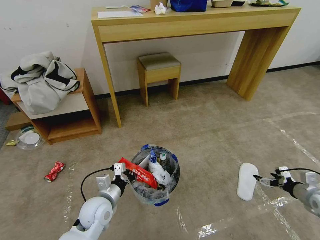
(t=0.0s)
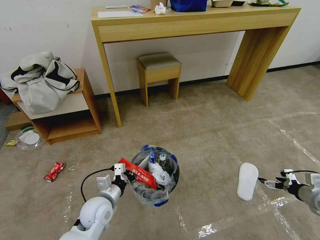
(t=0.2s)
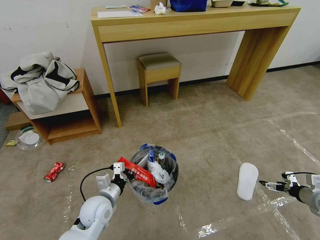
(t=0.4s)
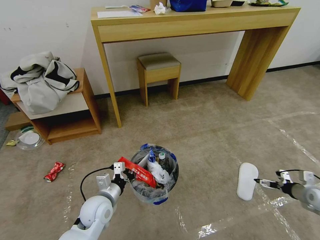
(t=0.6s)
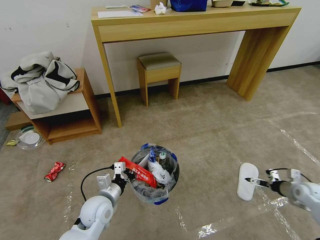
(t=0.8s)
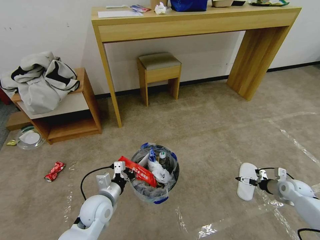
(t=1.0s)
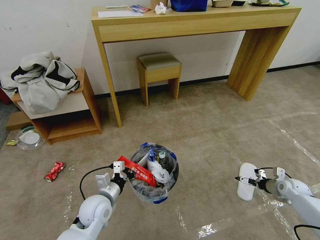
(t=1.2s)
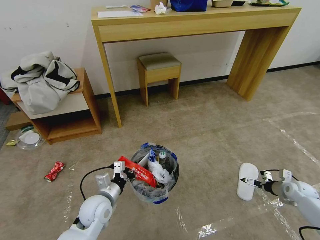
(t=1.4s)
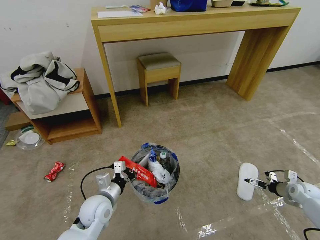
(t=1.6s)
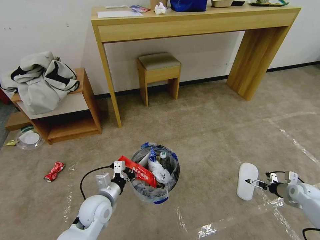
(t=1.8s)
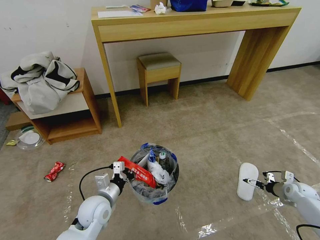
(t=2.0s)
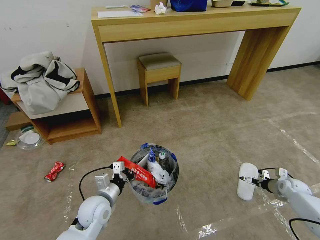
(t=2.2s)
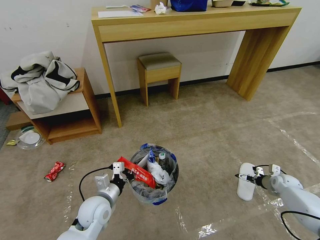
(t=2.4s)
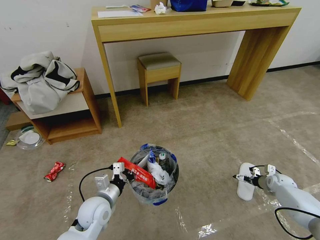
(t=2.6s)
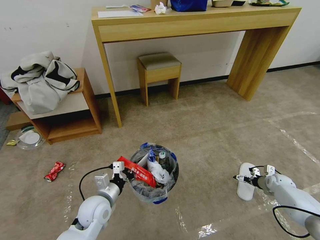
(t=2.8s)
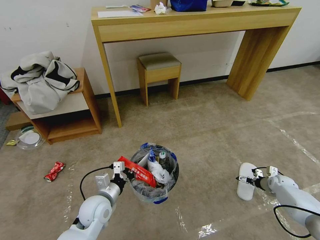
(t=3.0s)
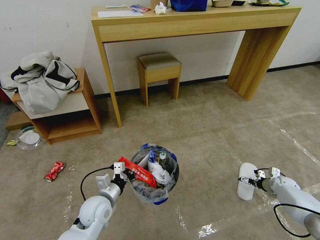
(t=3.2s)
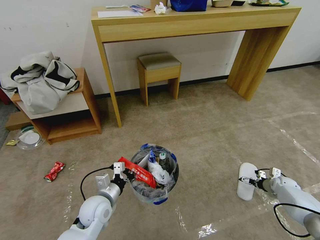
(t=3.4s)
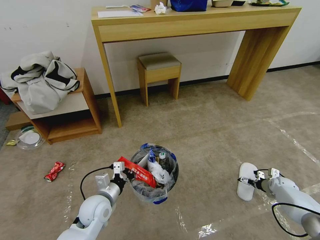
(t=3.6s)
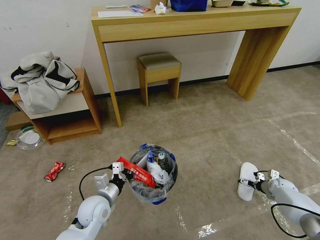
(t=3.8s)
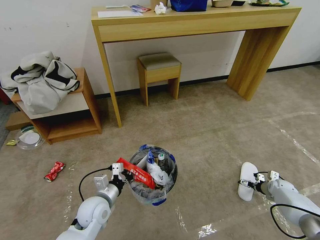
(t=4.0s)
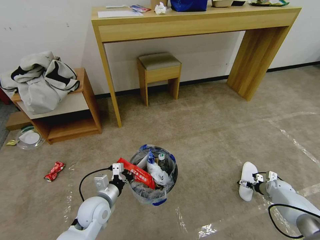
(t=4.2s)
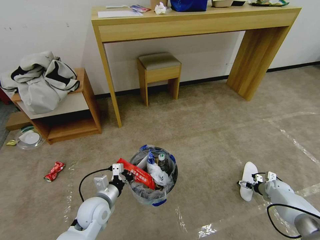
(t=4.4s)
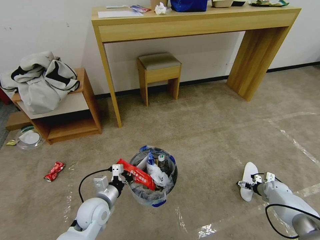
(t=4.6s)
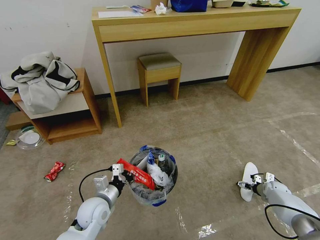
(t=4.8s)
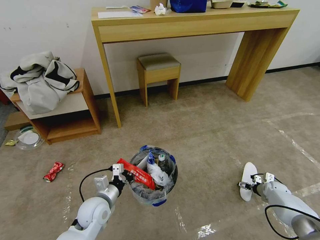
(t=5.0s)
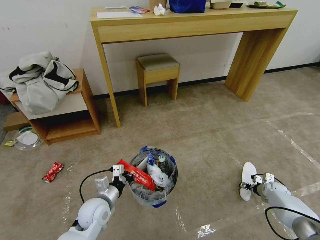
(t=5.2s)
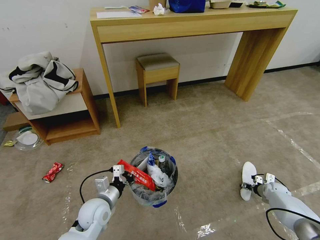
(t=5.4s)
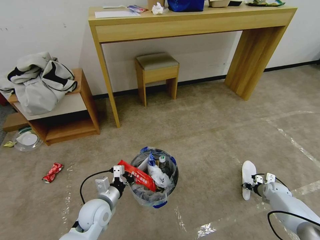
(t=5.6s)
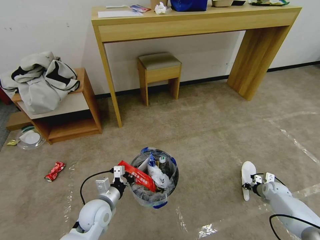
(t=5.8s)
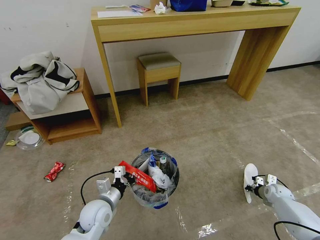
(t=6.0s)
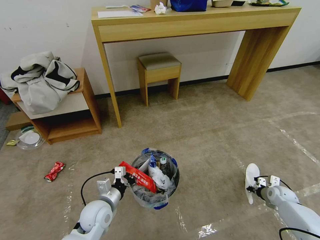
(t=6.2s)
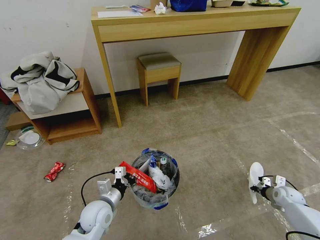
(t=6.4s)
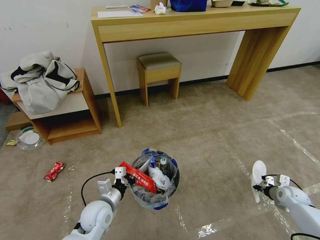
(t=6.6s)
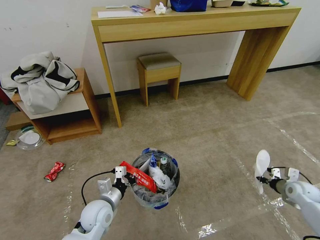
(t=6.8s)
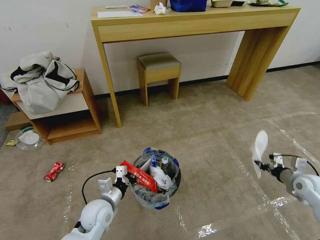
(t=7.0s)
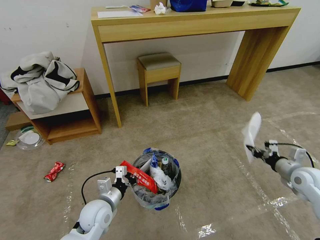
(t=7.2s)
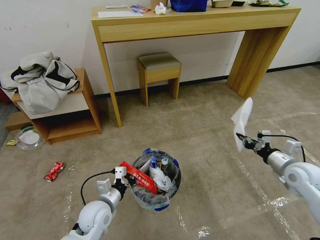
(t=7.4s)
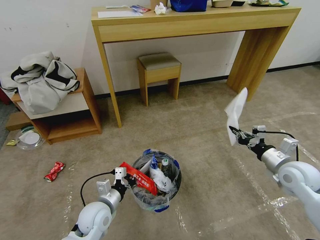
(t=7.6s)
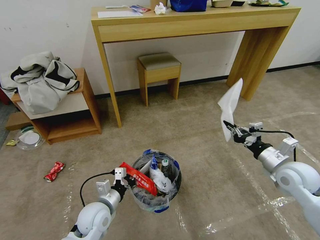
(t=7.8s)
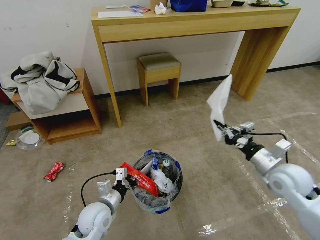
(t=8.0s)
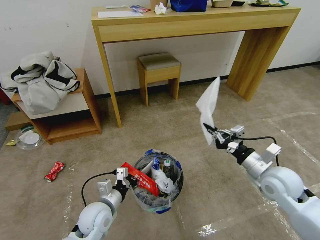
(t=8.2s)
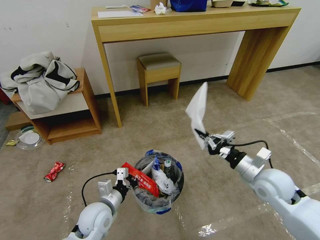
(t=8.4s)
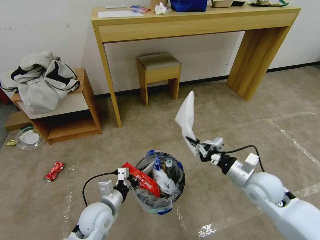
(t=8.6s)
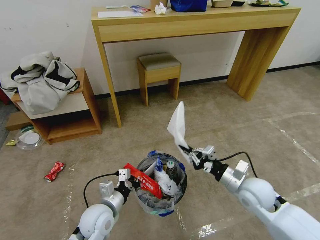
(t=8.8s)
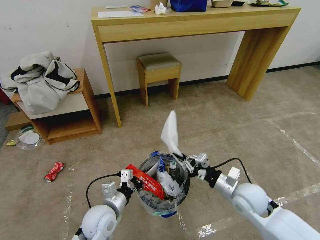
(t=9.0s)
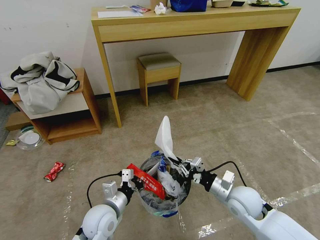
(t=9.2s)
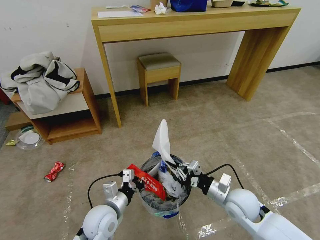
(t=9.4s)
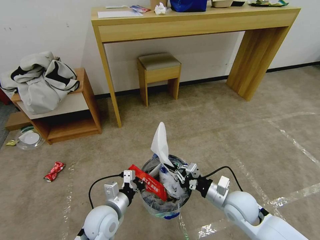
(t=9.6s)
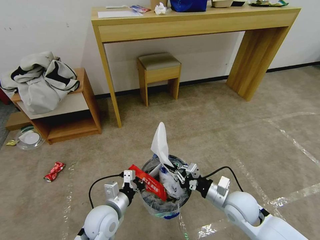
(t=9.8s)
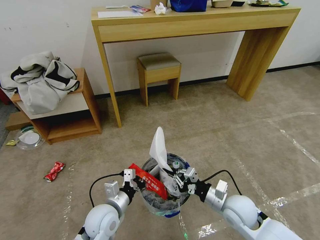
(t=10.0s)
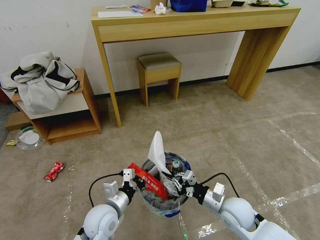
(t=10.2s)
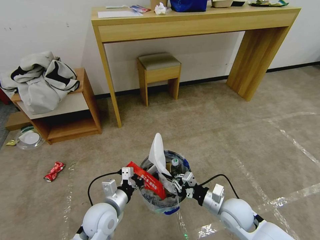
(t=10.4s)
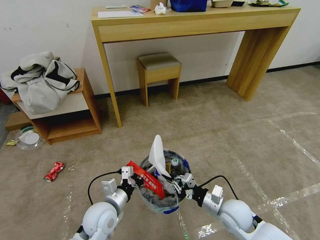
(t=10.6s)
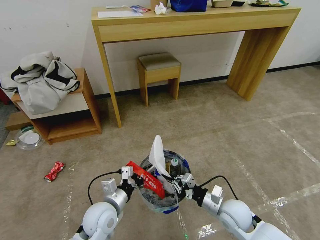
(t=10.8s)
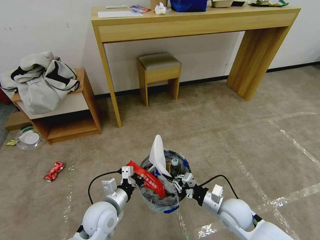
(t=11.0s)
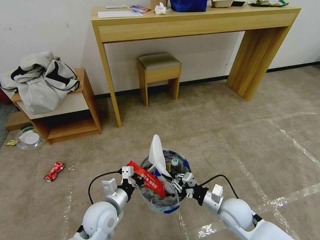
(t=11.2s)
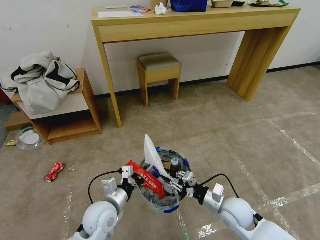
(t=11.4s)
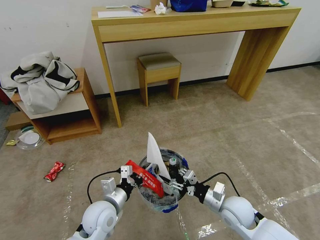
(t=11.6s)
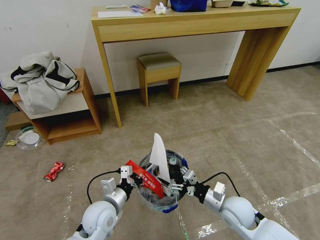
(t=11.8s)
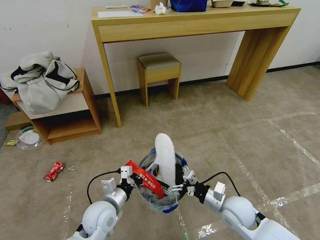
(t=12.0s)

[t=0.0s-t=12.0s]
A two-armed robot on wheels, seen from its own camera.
Task of the whole recording: Pick up the trash bin and place the garbage on the floor into it.
t=0.0s to t=1.6s: The right gripper is displaced downward and forward by about 10 cm.
t=1.6s to t=3.0s: The right gripper goes some 10 cm forward and downward.
t=3.0s to t=4.4s: The grippers stay close to where they were, moving slightly.
t=4.4s to t=6.0s: The right gripper closes up.
t=6.0s to t=7.6s: The right gripper shifts some 30 cm upward and to the left.
t=7.6s to t=9.0s: The right gripper moves to the left and downward, approximately 15 cm.
t=9.0s to t=10.4s: The right gripper moves downward, some 5 cm.
t=10.4s to t=12.0s: The right gripper opens its fingers.

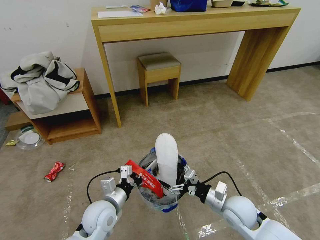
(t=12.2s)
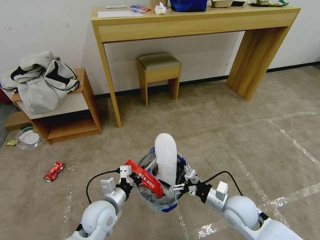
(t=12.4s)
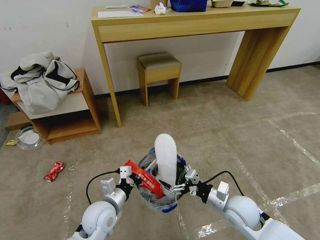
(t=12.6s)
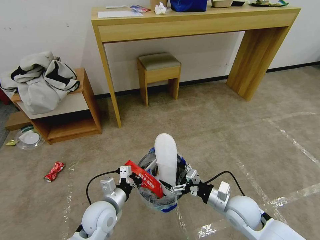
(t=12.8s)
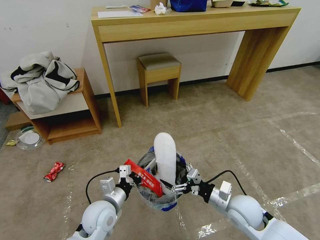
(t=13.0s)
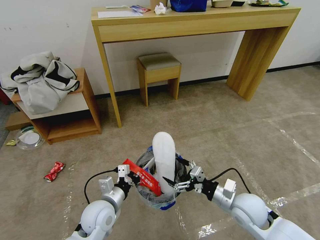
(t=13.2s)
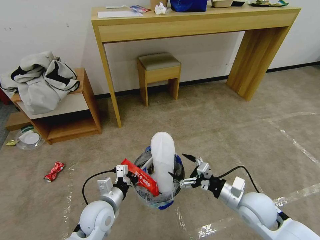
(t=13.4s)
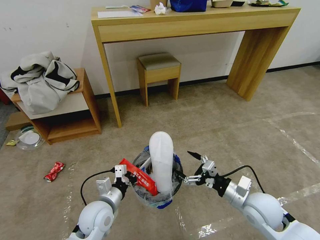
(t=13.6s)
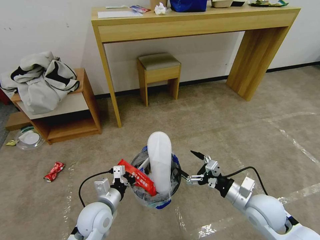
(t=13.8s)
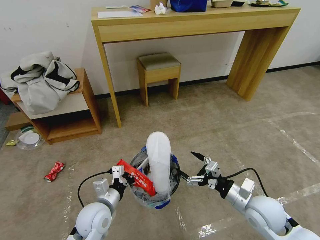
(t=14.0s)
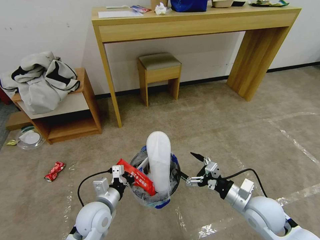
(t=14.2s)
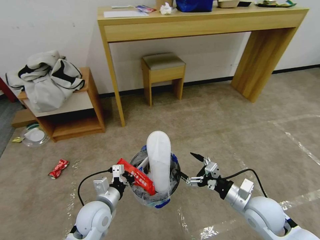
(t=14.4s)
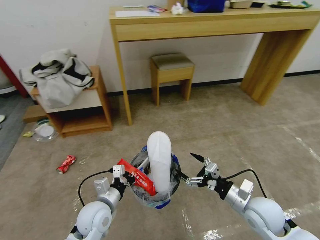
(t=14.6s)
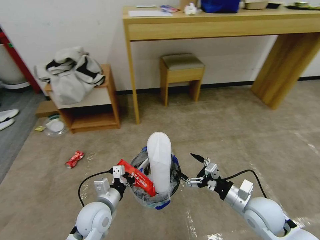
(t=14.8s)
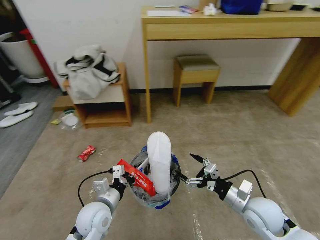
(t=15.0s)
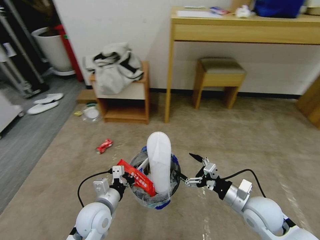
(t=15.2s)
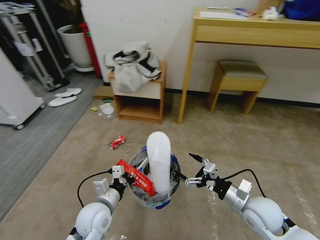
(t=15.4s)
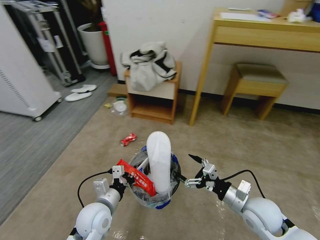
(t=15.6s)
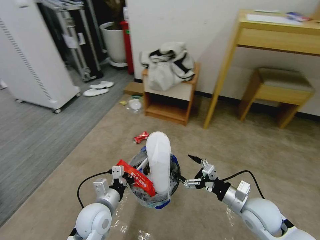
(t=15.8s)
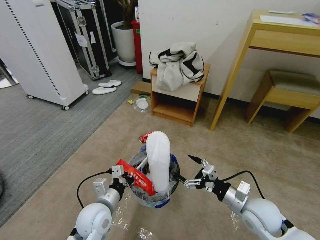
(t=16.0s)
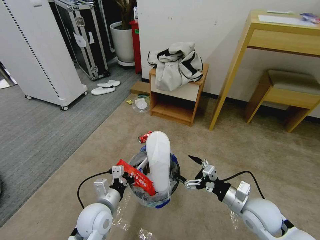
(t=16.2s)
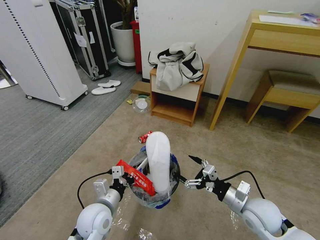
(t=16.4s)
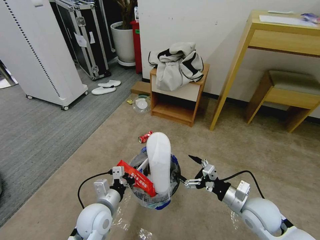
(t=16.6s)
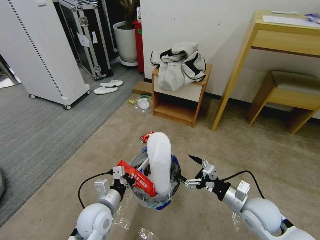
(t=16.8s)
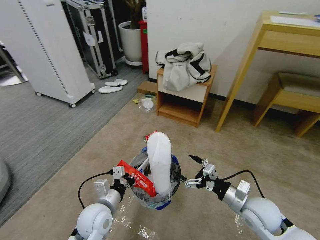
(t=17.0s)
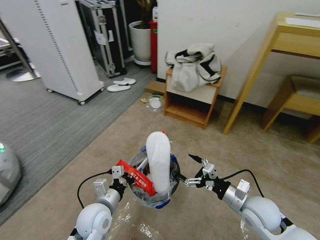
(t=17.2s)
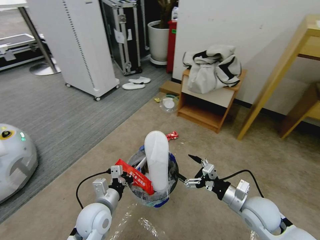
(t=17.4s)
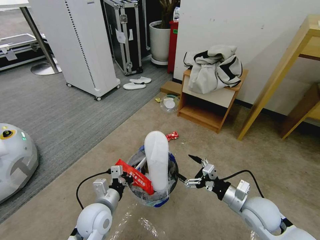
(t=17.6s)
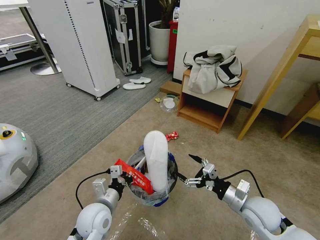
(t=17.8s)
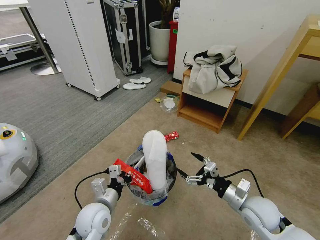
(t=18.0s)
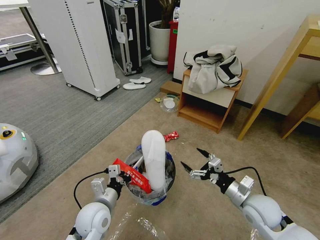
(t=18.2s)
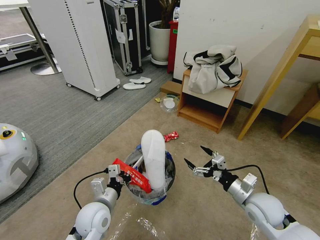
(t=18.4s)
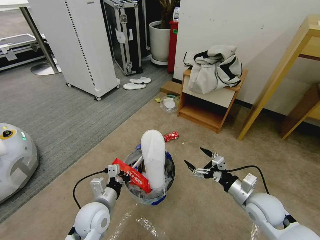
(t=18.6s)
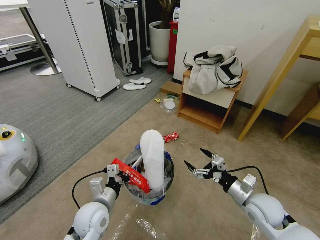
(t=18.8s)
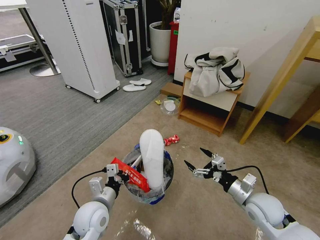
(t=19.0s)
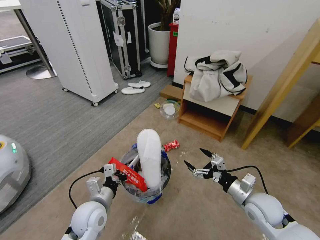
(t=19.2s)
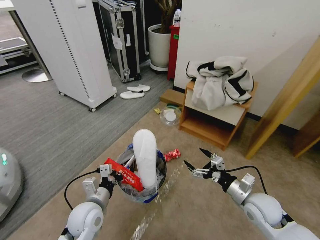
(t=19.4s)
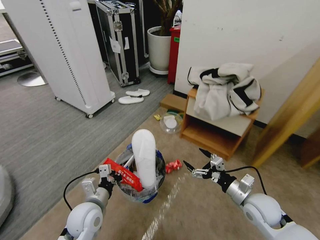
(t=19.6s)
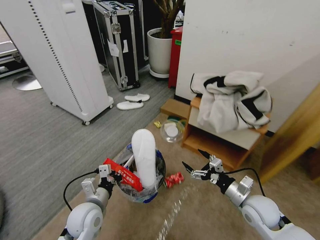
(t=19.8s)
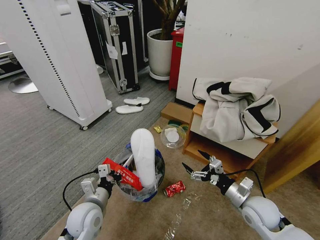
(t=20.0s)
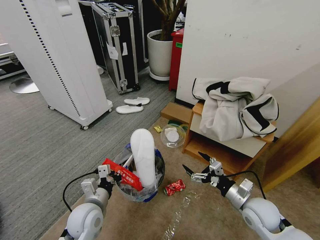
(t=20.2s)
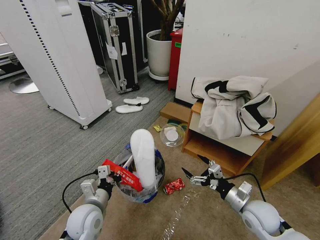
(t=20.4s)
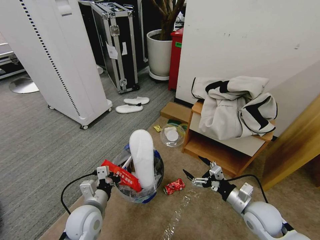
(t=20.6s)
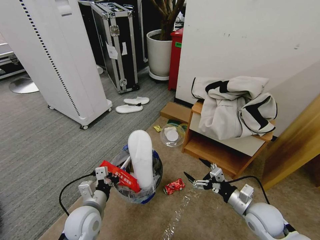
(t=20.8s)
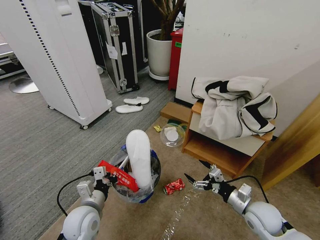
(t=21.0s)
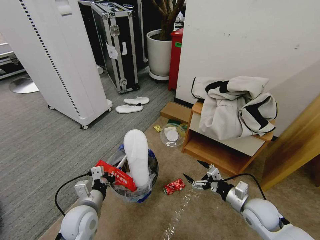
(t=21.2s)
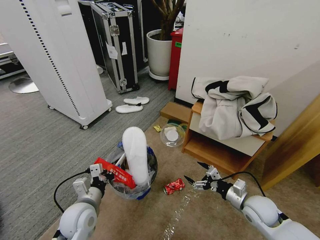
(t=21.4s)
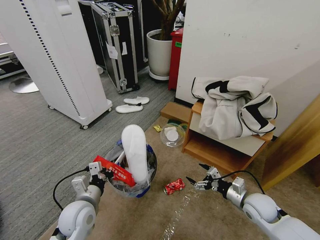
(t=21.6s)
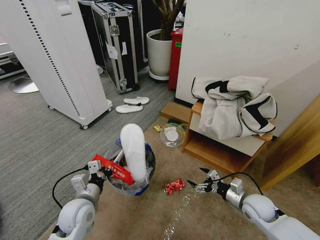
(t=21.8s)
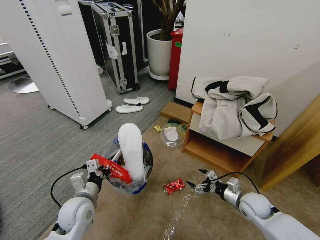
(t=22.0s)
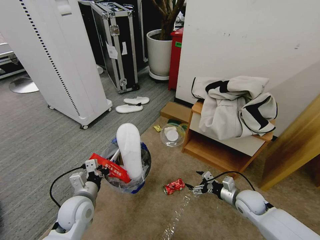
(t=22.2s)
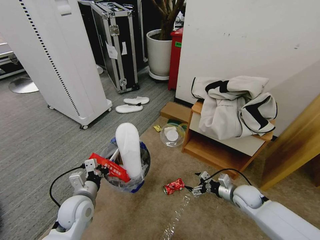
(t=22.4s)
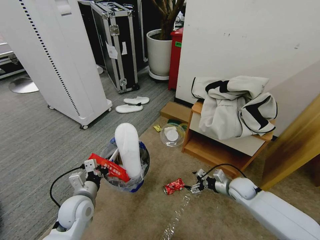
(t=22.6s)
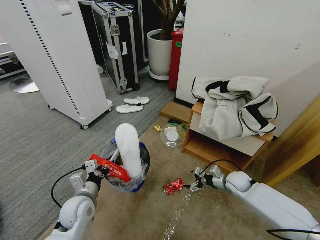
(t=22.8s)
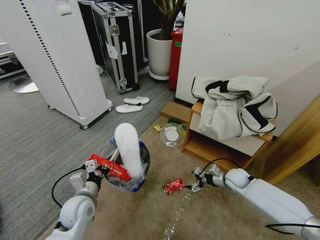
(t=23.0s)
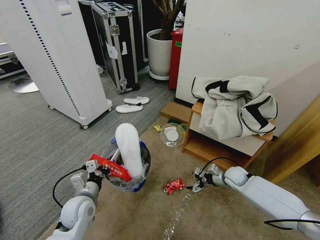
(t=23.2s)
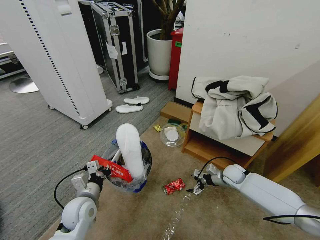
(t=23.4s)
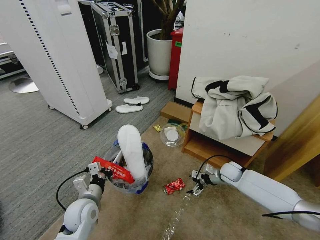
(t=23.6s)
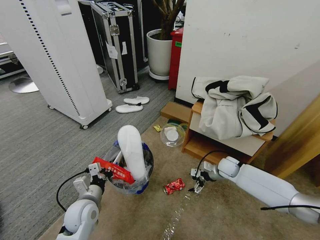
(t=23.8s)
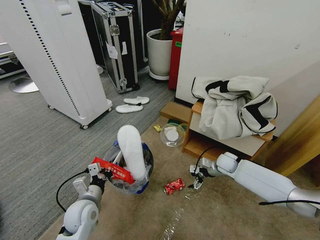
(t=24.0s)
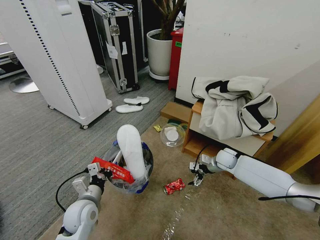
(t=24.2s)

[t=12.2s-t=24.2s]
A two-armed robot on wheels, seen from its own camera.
Task of the whole recording: Pick up the trash bin and place the garbage on the floor into it.
t=12.2s to t=13.8s: The right gripper goes roughly 5 cm upward.
t=21.2s to t=22.6s: The right gripper travels forward and downward by approximately 10 cm.
t=22.6s to t=24.2s: The right gripper goes approximately 15 cm forward.
